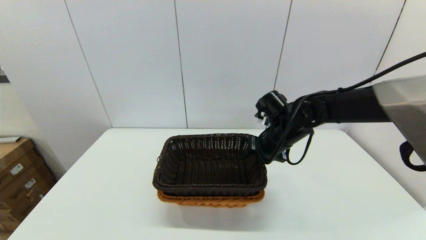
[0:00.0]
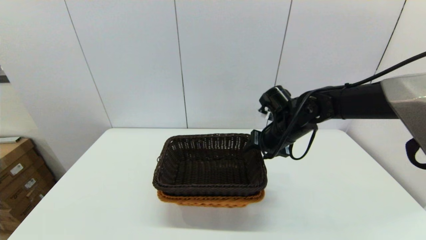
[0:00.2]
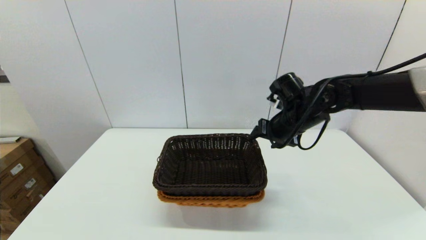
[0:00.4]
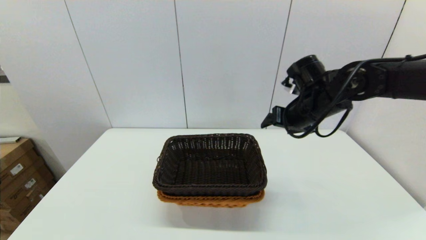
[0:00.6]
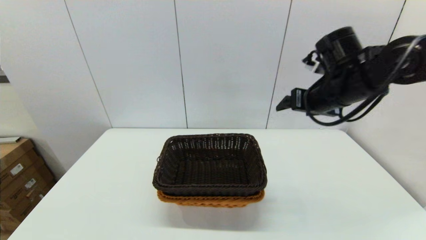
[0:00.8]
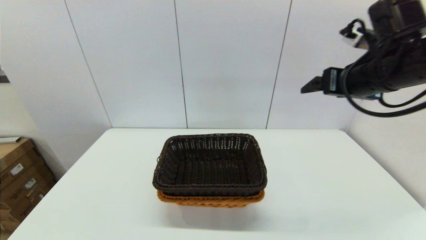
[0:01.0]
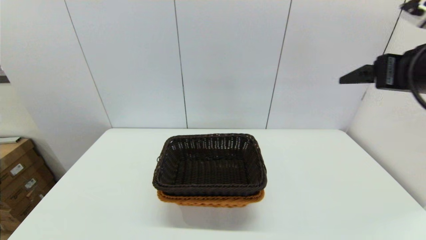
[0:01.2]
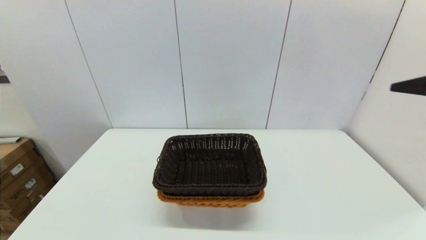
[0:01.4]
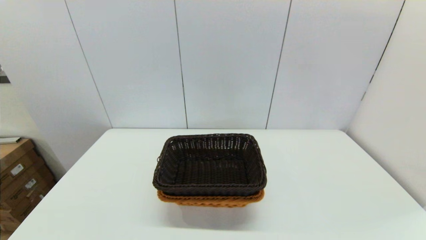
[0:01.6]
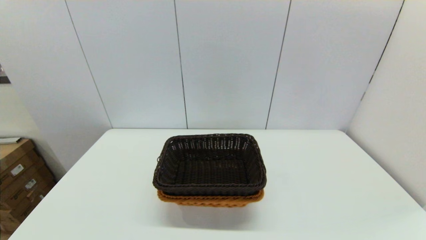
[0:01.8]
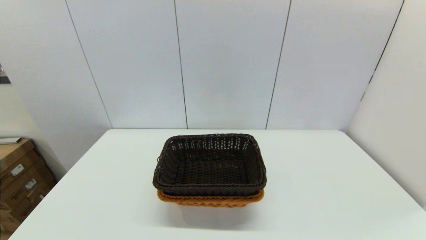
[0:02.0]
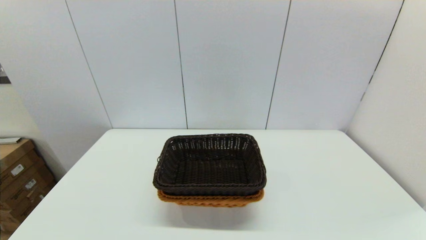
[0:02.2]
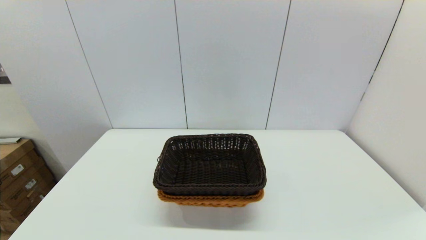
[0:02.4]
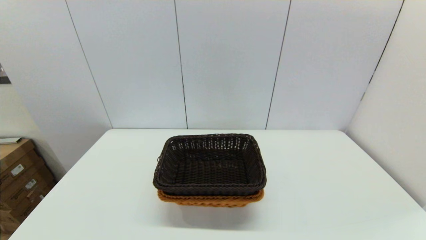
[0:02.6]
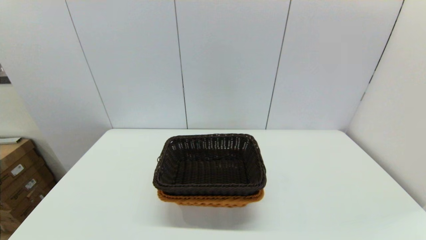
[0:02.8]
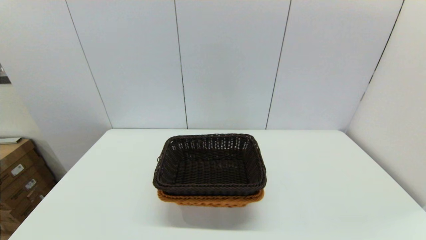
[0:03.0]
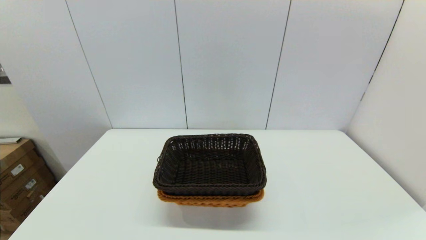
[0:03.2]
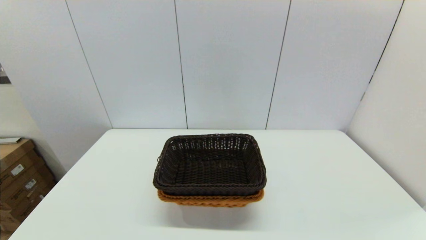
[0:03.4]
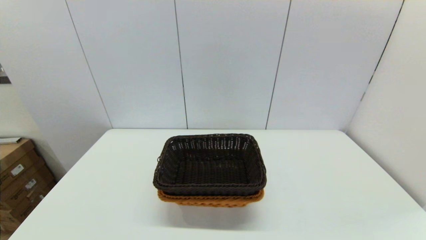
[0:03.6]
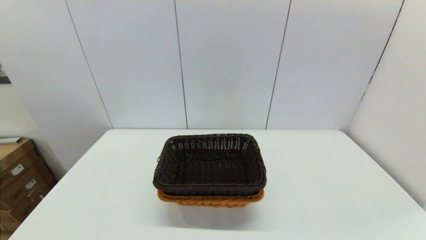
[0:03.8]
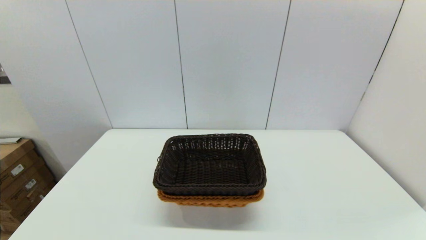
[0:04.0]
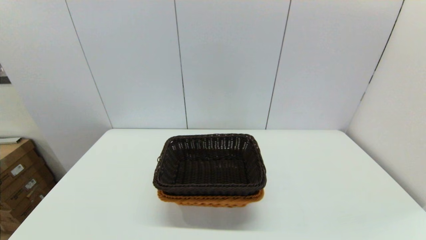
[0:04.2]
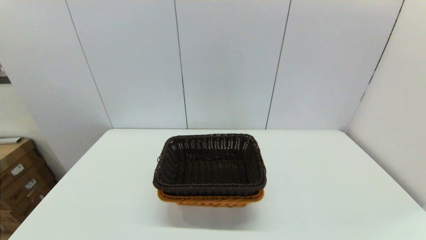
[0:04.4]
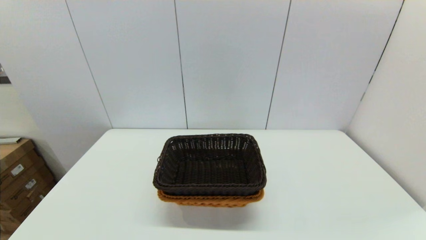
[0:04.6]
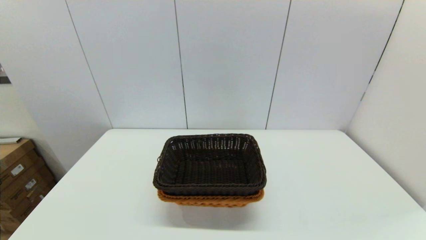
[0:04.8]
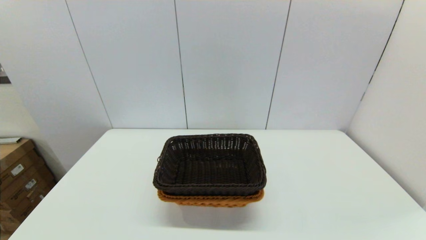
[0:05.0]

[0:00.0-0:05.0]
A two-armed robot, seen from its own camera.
Task of the whole recording: stack a basket on top of another basket.
0:00.0 to 0:01.6: The right gripper shifts about 40 cm backward, upward and to the right, and opens.
